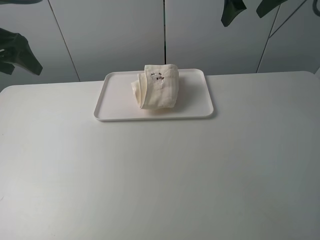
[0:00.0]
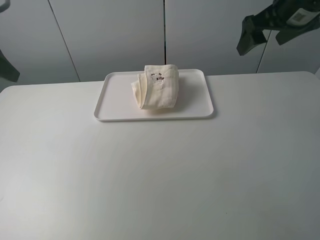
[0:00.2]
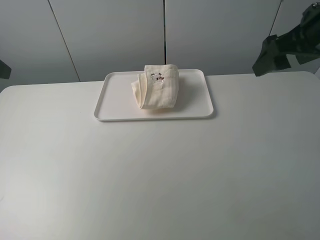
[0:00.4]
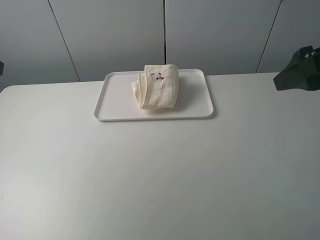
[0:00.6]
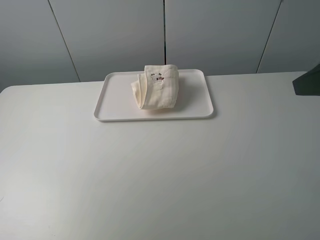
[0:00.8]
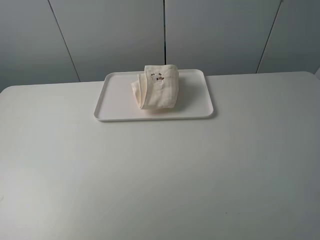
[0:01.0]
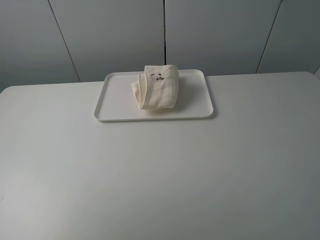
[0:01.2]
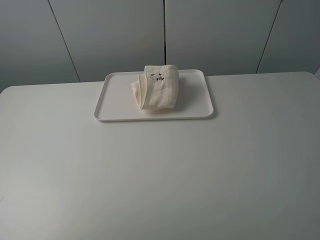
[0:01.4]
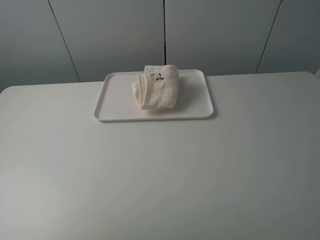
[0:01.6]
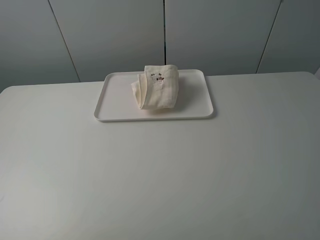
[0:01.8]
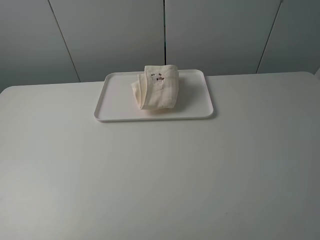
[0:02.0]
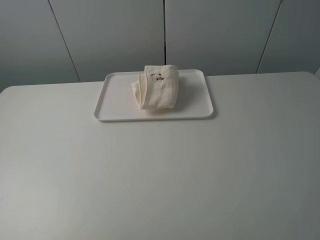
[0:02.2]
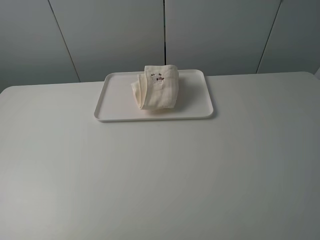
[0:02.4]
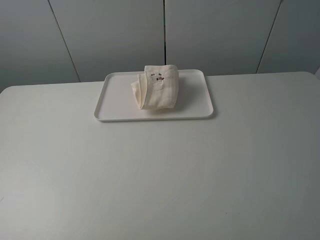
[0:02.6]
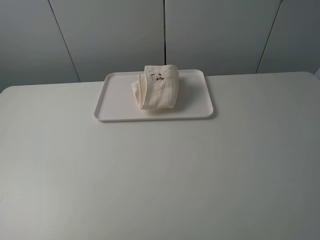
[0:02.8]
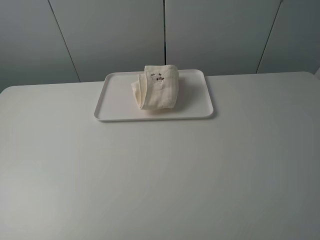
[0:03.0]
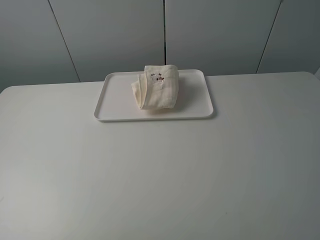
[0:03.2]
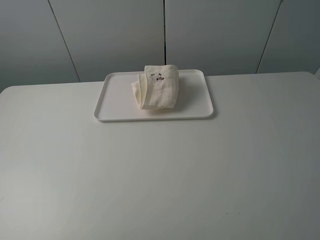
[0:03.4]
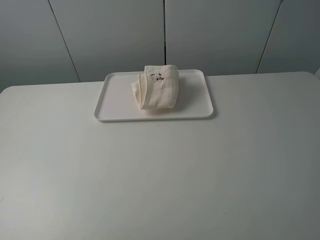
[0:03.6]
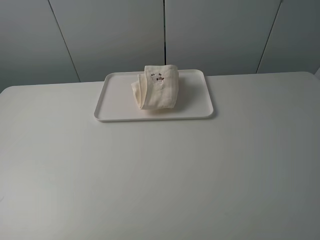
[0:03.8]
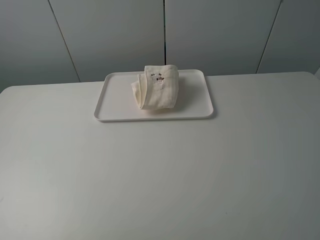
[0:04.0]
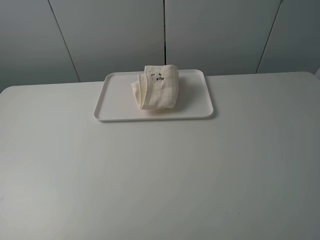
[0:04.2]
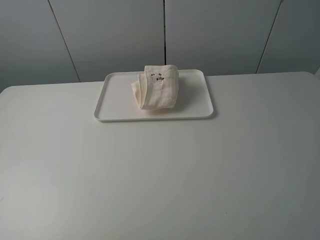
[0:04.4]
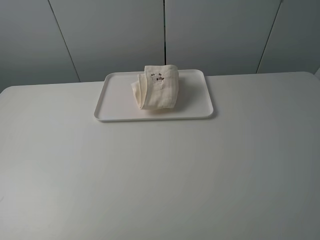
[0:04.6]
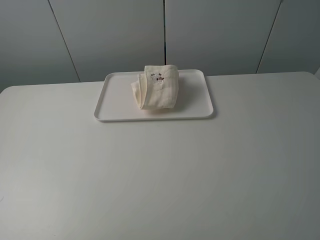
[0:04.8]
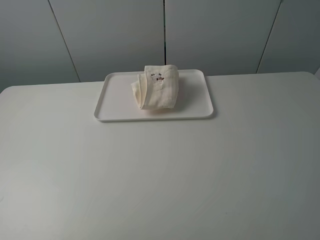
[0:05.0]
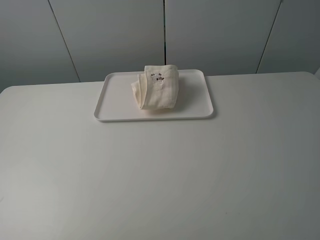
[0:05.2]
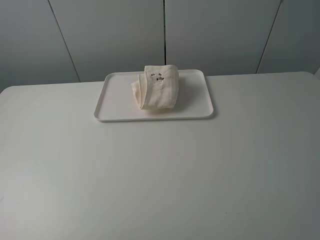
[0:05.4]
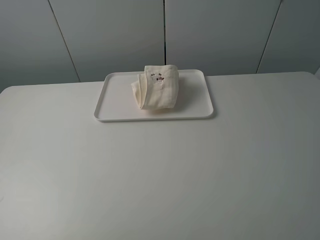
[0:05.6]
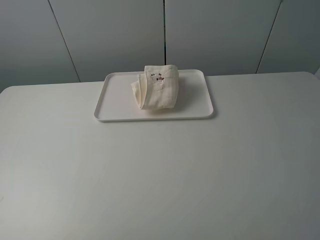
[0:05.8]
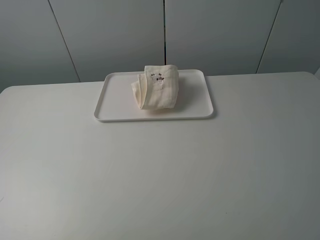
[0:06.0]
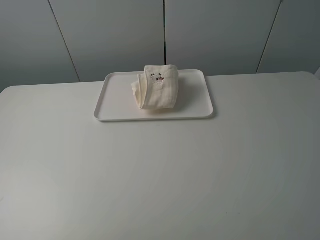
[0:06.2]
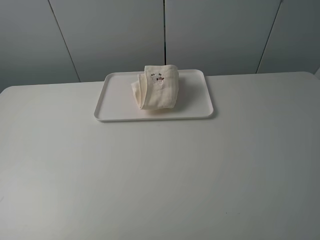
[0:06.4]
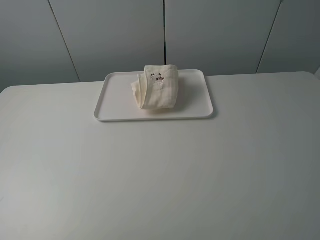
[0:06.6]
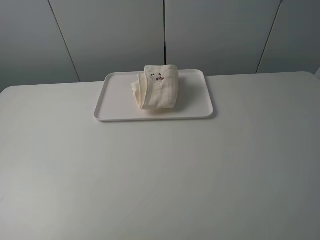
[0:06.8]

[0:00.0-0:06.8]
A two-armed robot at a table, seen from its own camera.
Task of the whole recording: fold one of the towels by two grippers and place it on the tray,then fold another towel by two grippers and place it on the folded towel.
0:00.0 to 0:01.4: Both grippers travel together backward, approximately 30 cm.
0:04.0 to 0:06.8: The two grippers keep their place.

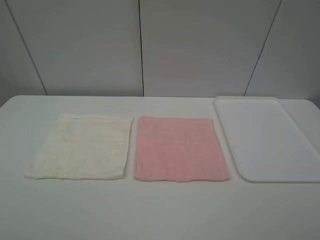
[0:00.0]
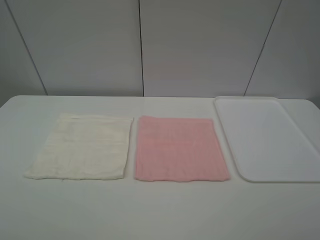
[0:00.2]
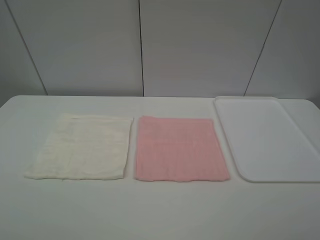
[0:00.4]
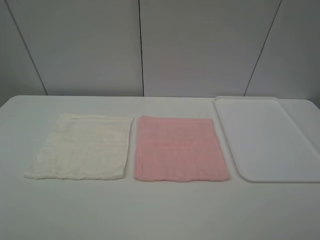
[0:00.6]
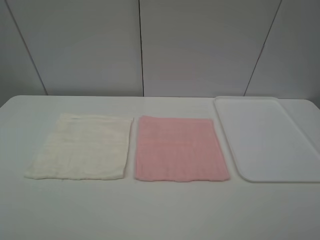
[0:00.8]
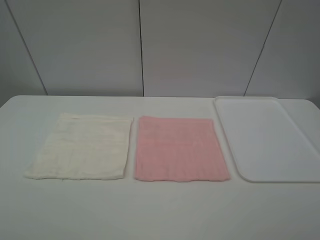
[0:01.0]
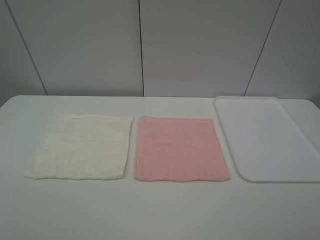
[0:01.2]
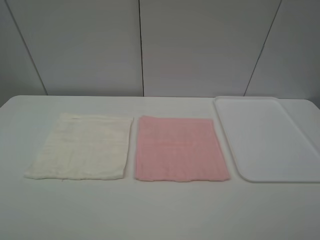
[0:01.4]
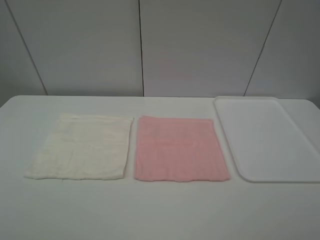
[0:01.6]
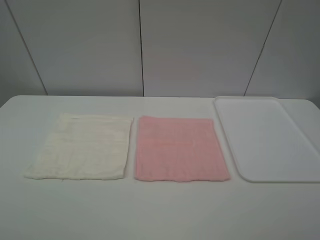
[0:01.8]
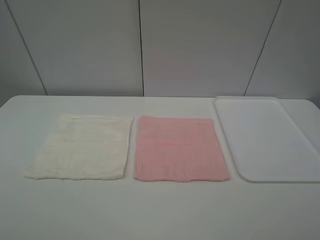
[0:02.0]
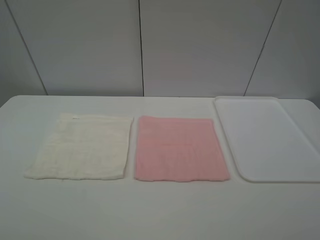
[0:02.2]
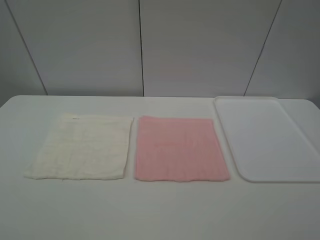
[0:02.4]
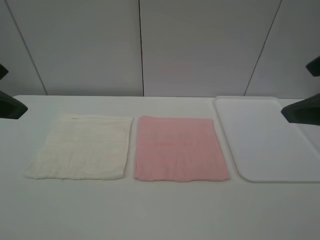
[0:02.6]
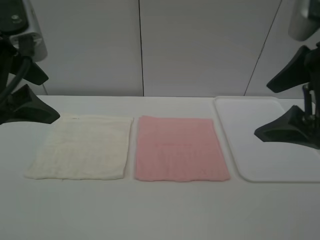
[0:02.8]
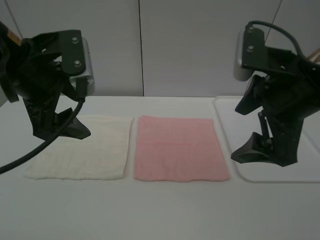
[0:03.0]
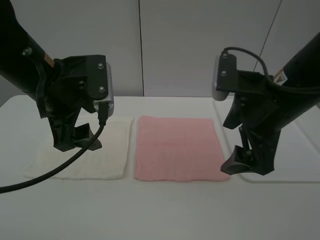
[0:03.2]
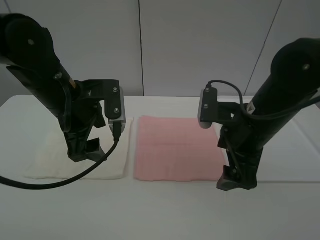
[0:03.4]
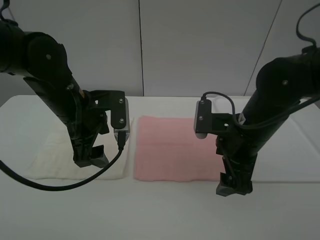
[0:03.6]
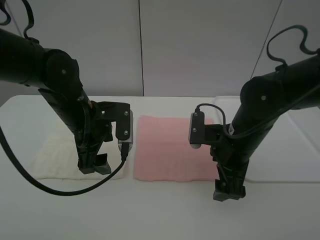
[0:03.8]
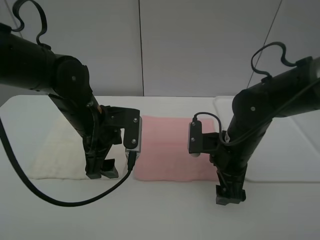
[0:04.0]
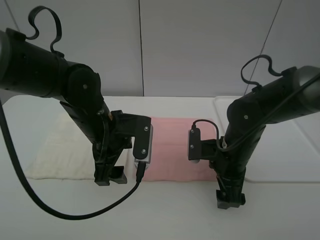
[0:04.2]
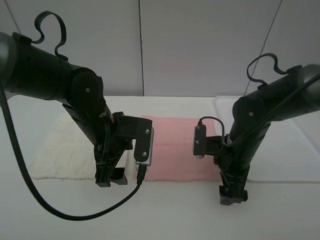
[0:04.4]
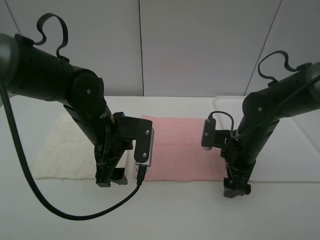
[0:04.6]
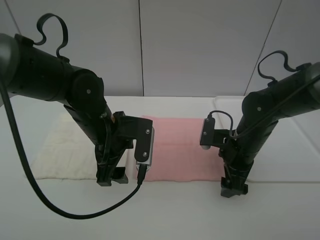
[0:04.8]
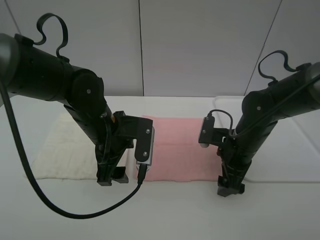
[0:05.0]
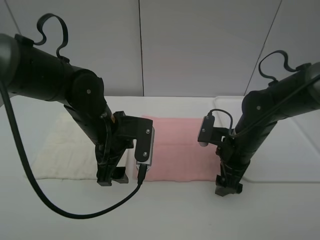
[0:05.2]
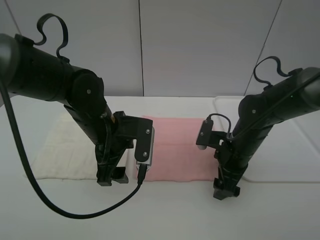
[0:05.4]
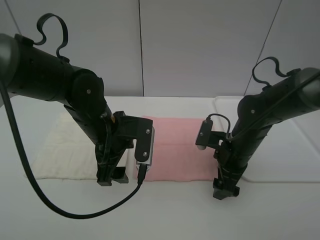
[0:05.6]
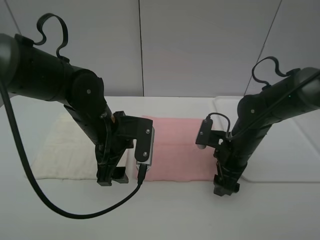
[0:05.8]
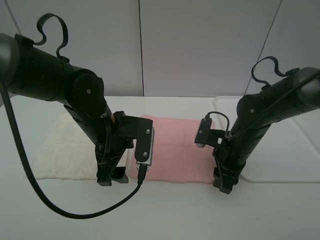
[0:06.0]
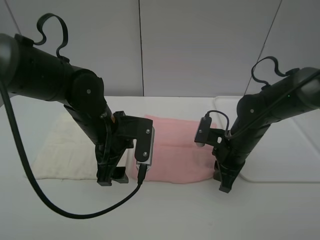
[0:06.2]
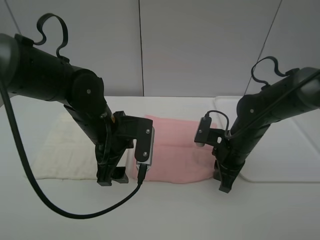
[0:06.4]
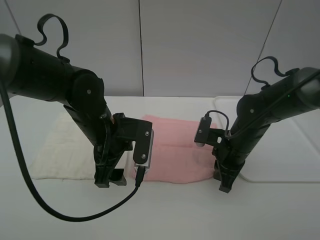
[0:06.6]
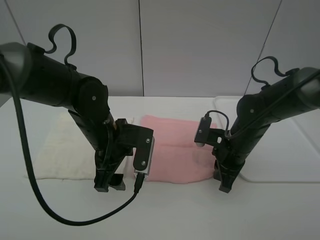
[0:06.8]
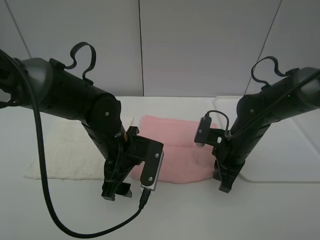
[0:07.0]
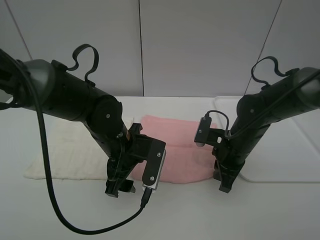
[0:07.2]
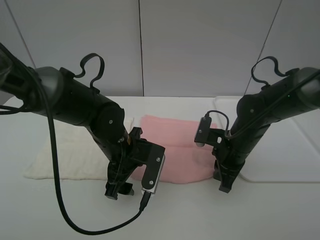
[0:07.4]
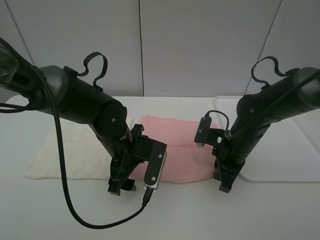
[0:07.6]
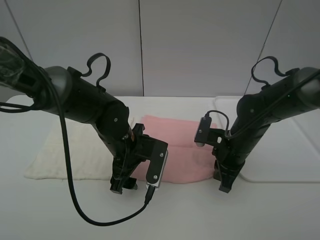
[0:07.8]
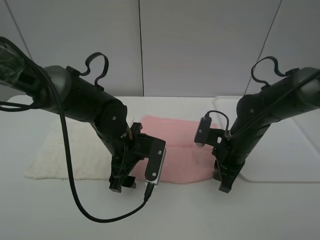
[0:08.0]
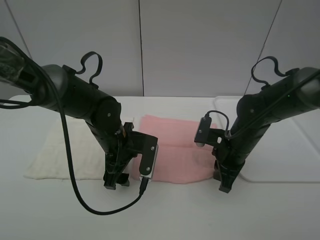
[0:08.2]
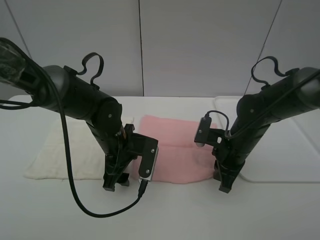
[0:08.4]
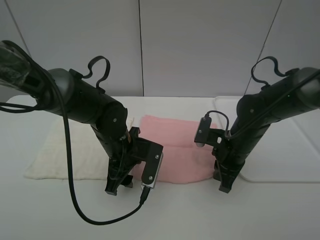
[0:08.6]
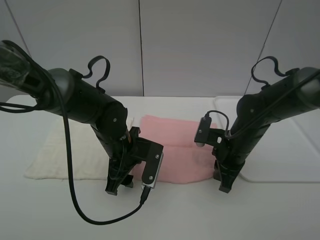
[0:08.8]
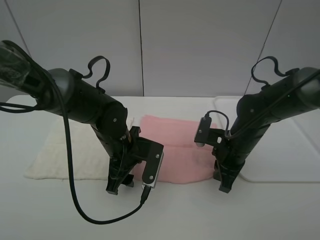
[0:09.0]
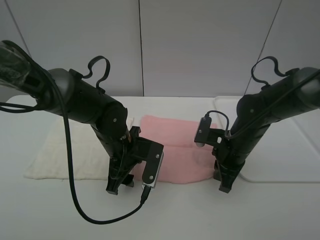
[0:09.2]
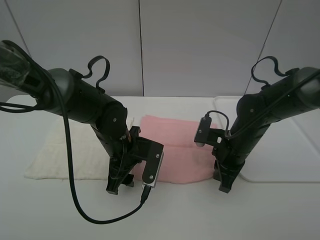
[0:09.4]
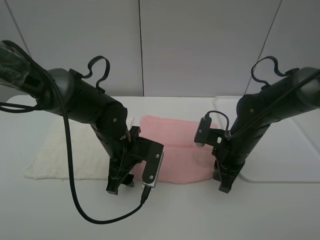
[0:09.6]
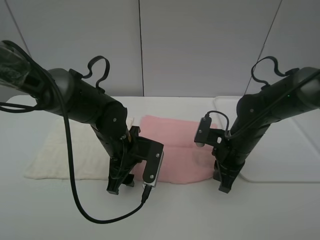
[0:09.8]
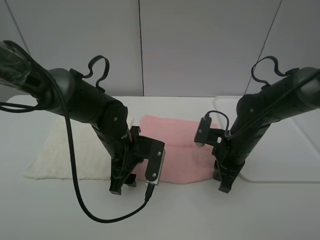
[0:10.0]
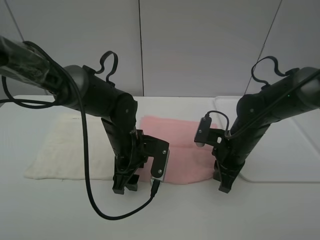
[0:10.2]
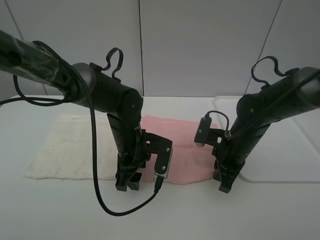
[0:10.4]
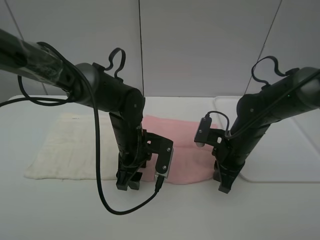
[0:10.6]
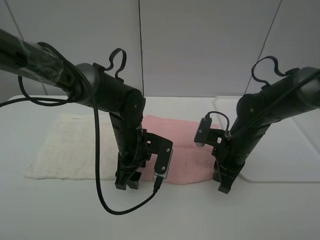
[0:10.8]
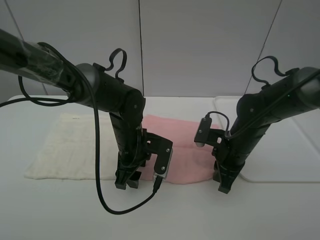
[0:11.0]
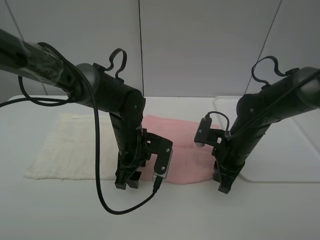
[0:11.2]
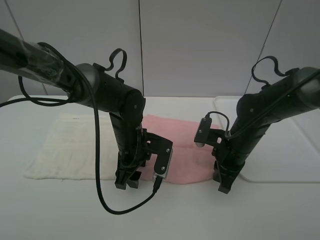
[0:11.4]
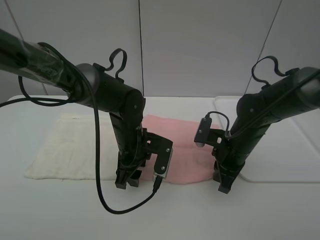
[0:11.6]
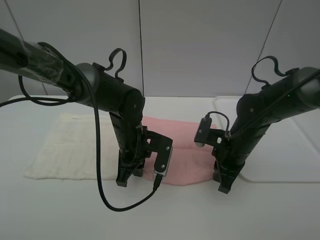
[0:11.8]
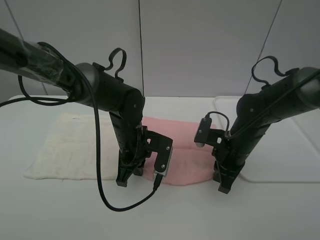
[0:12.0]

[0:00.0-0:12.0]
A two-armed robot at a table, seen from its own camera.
Task of the whole recording: fold one of the towels by two grippers and place it on the tray,then fold another towel by two grippers and place it on the folded towel.
Step, 0:00.0 to 0:09.2: Grasp the pink towel with the left gripper.
0:00.0 to 0:01.6: Both grippers stay put.
0:01.6 to 0:03.0: The left gripper heads forward and to the right, covering approximately 25 cm. Meanwhile the right gripper goes approximately 25 cm forward and to the left.
0:03.0 to 0:04.4: The right gripper moves downward, approximately 15 cm. The left gripper travels downward and to the right by roughly 15 cm.
0:04.4 to 0:06.0: The right gripper closes up.
0:06.0 to 0:07.6: The left gripper moves some 5 cm, while the right gripper closes its fingers.
0:07.6 to 0:10.4: There are only small adjustments of the grippers.
0:10.4 to 0:12.0: The left gripper closes up.

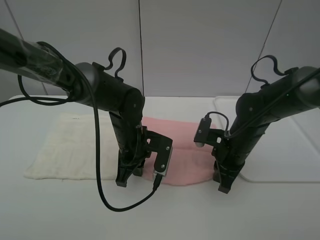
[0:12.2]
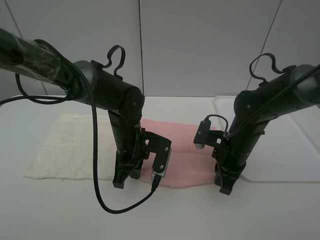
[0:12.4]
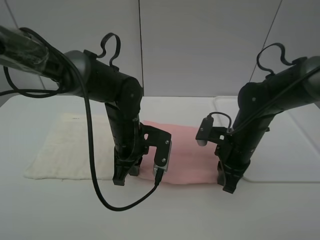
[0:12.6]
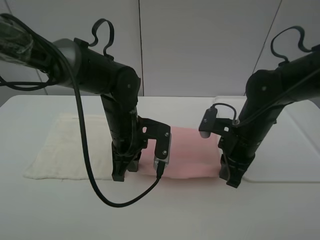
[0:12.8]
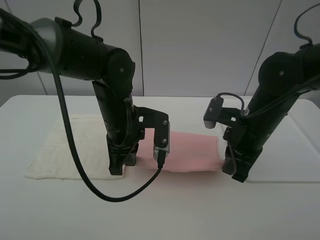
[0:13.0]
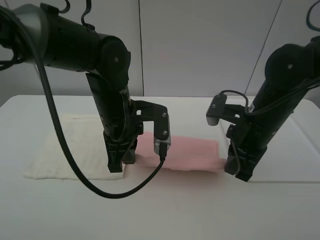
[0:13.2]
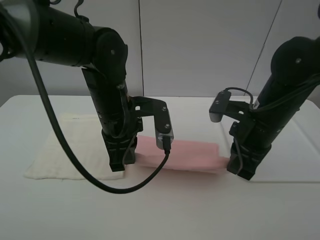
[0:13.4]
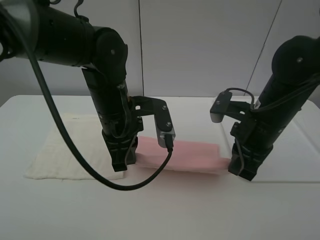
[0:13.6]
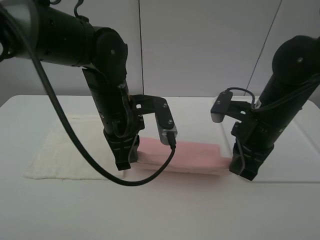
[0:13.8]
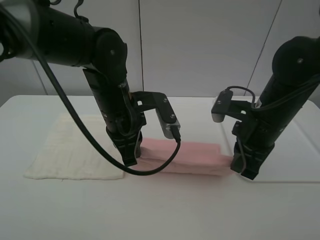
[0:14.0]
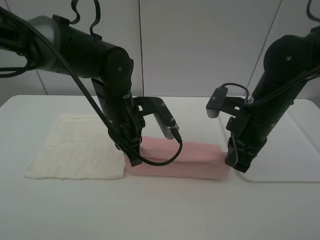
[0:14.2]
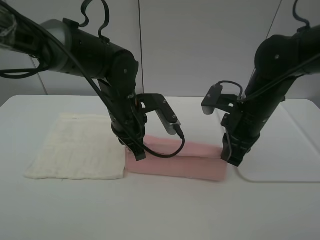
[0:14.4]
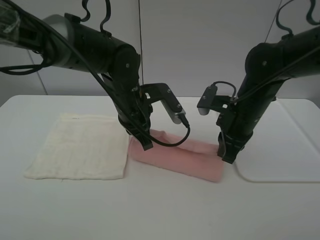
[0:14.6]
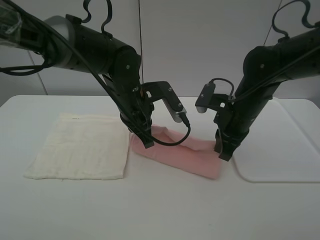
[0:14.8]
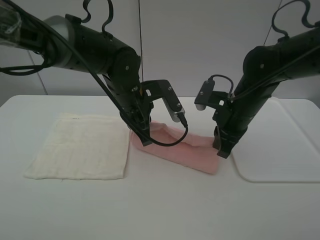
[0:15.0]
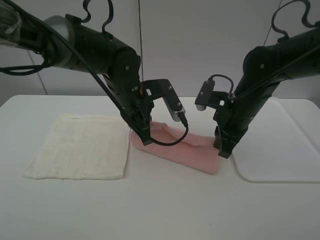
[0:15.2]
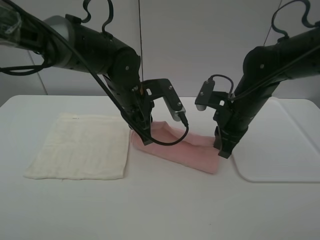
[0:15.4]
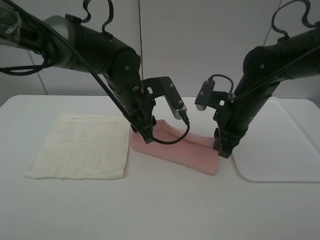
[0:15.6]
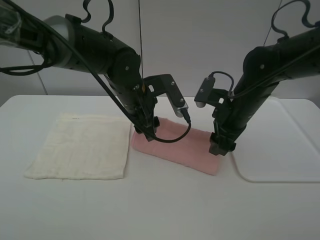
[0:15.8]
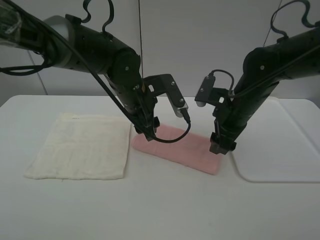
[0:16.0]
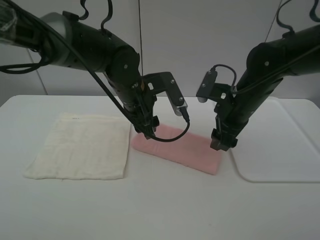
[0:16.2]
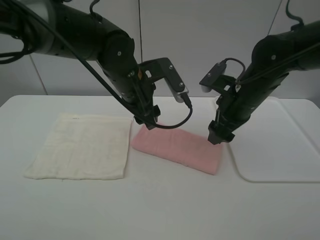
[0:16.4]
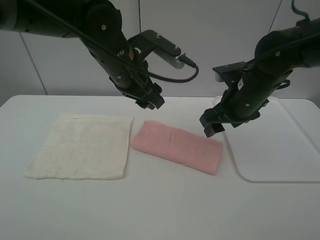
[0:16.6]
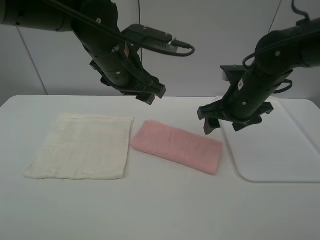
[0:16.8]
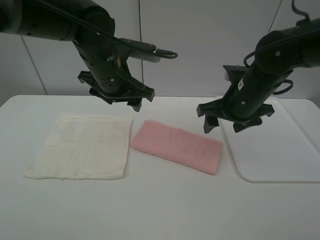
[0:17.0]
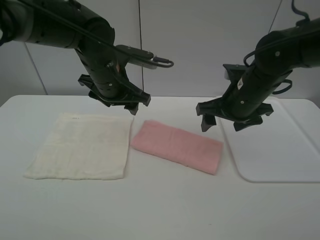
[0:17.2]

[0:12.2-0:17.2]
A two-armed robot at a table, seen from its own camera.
Task of the whole recording: fold one of the towels by two grippers and place it on the tray,then fold another towel by two grippers and place it on the folded towel.
Step, 0:12.2 to 0:16.0: Fold the pink towel upwards with the left gripper.
0:12.2 to 0:13.8: Both grippers travel together upward, some 10 cm.
0:13.8 to 0:15.6: Both grippers move forward, about 5 cm. The left gripper opens its fingers.
0:15.6 to 0:17.2: The left gripper changes place by some 5 cm. The right gripper opens up.
